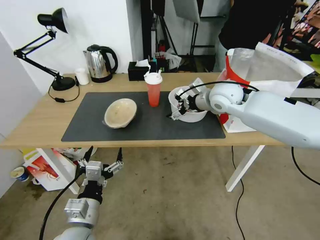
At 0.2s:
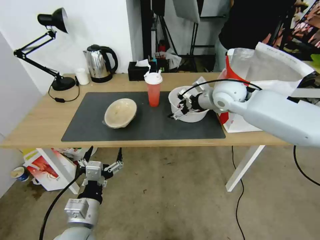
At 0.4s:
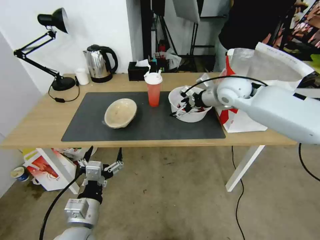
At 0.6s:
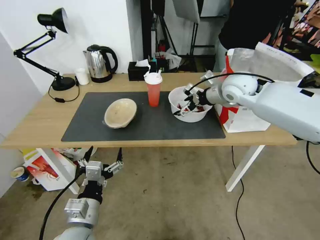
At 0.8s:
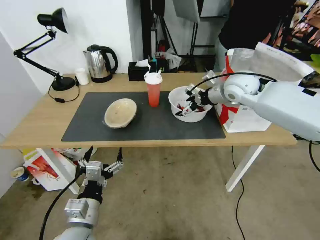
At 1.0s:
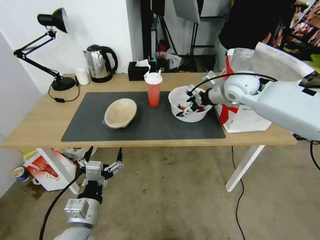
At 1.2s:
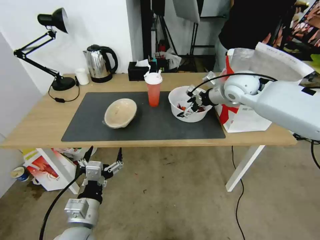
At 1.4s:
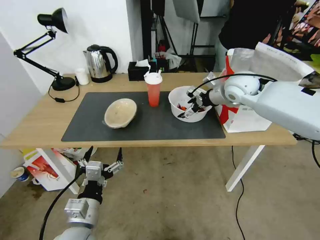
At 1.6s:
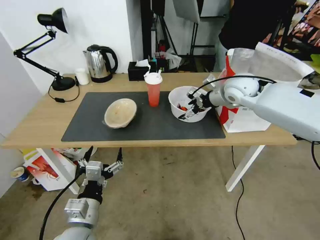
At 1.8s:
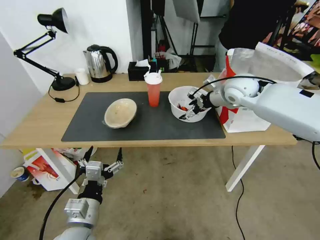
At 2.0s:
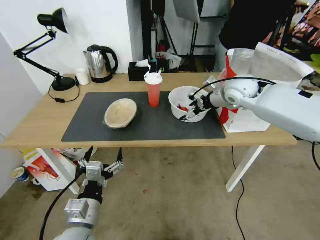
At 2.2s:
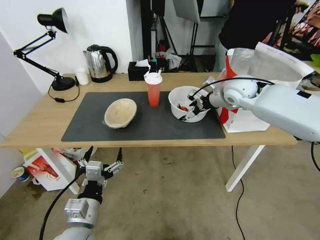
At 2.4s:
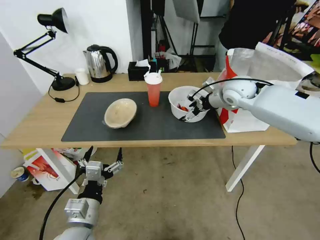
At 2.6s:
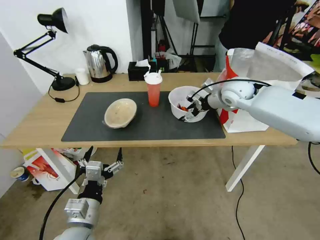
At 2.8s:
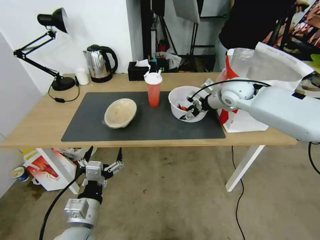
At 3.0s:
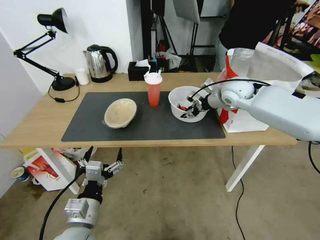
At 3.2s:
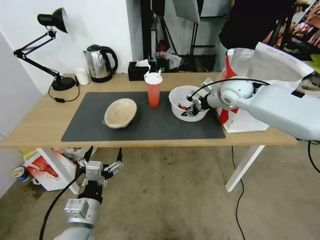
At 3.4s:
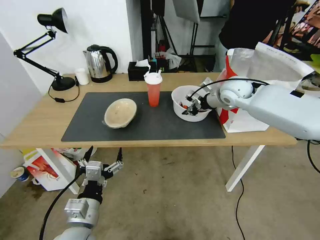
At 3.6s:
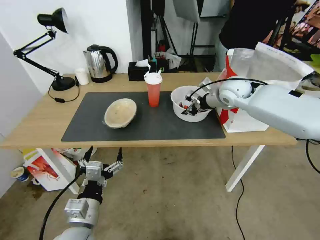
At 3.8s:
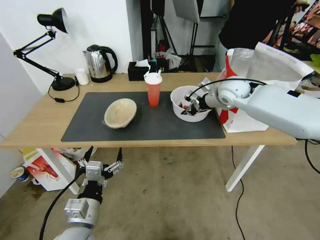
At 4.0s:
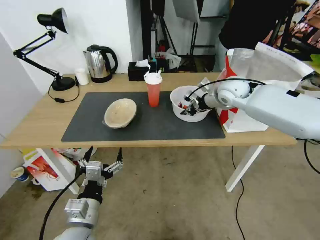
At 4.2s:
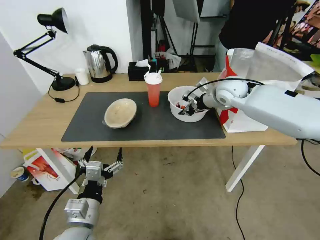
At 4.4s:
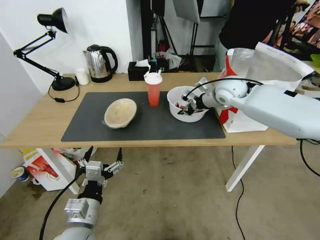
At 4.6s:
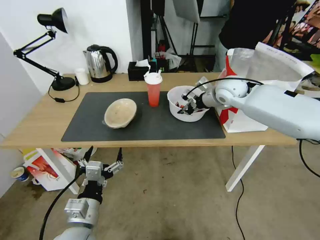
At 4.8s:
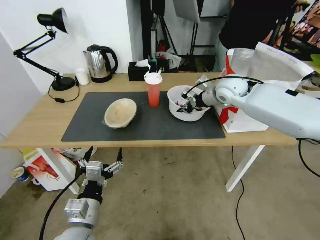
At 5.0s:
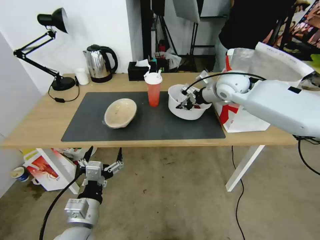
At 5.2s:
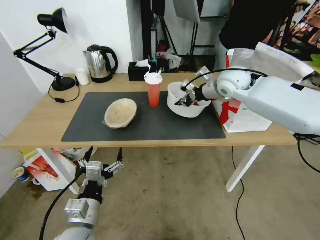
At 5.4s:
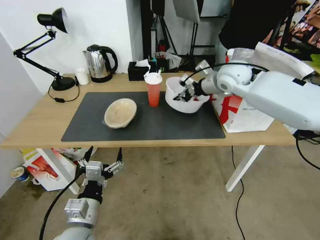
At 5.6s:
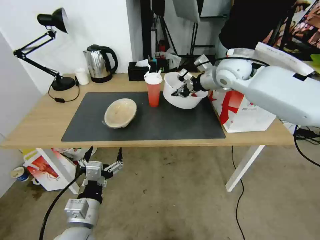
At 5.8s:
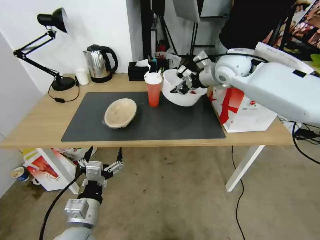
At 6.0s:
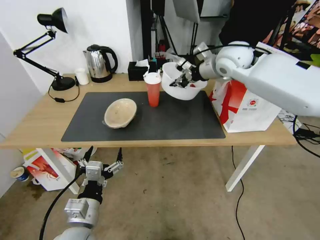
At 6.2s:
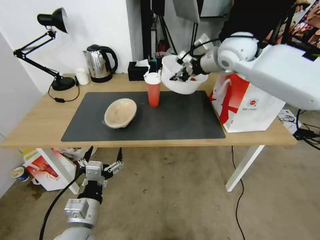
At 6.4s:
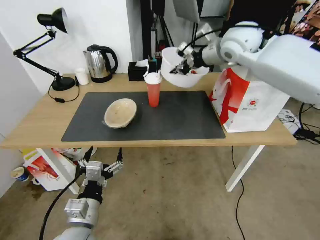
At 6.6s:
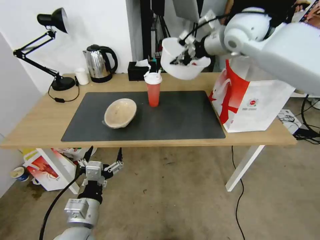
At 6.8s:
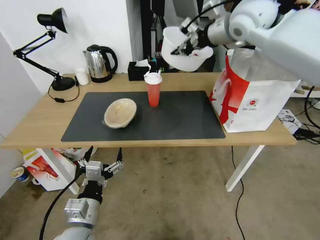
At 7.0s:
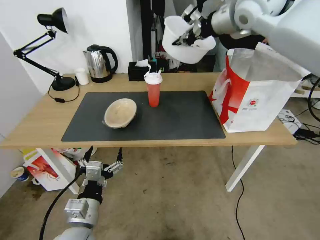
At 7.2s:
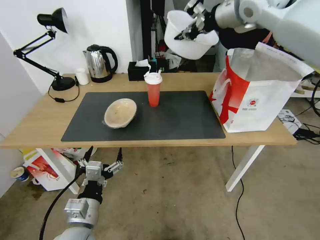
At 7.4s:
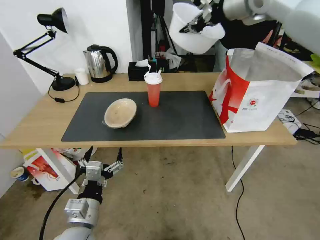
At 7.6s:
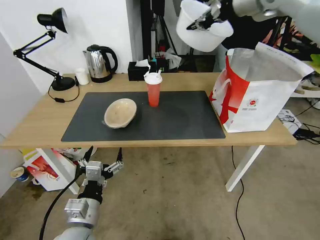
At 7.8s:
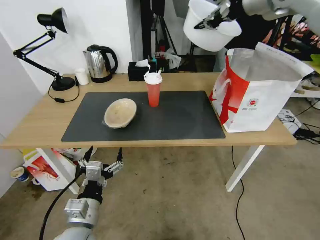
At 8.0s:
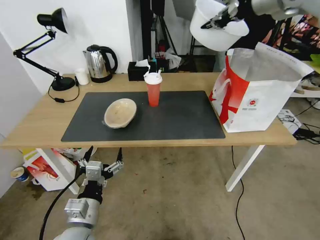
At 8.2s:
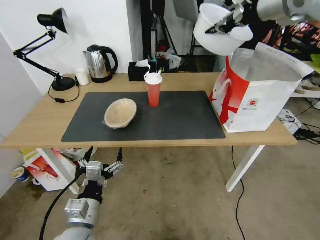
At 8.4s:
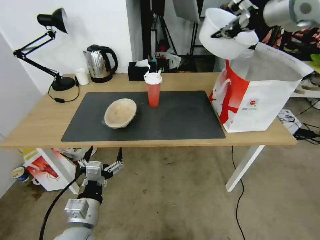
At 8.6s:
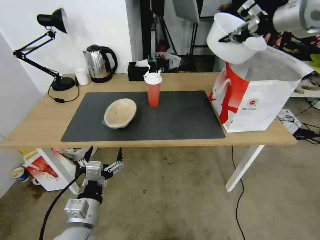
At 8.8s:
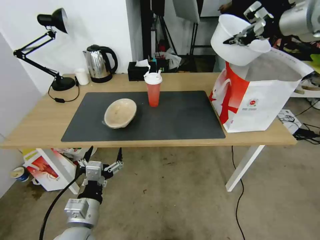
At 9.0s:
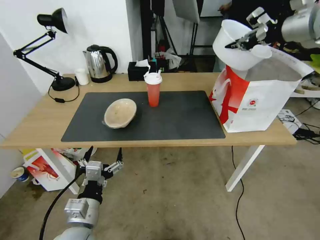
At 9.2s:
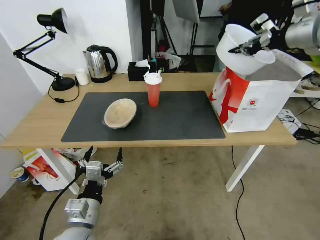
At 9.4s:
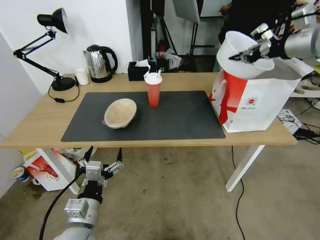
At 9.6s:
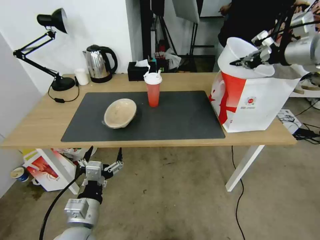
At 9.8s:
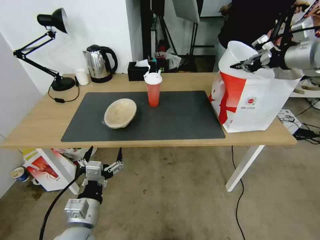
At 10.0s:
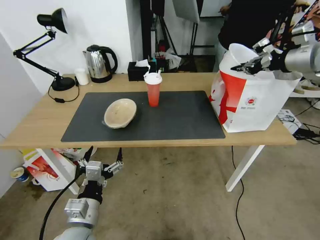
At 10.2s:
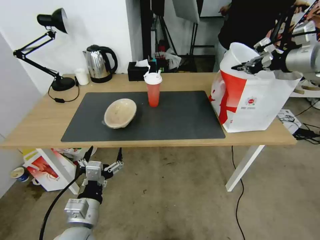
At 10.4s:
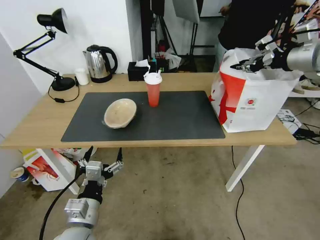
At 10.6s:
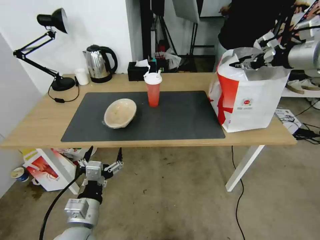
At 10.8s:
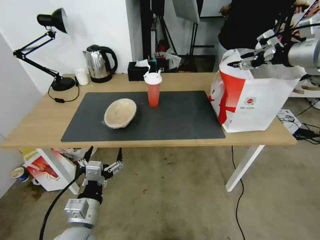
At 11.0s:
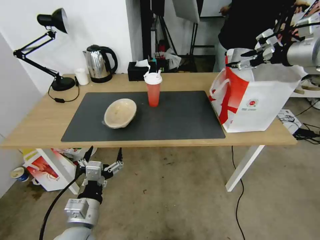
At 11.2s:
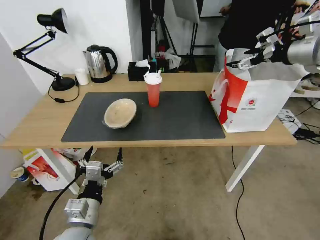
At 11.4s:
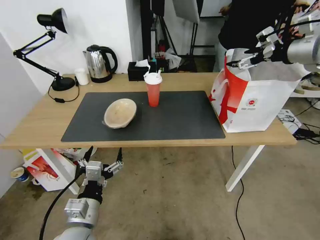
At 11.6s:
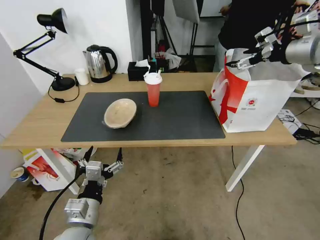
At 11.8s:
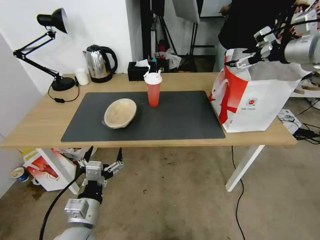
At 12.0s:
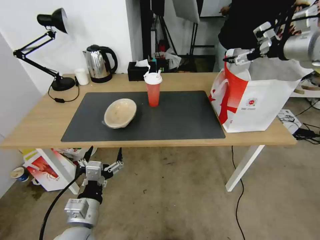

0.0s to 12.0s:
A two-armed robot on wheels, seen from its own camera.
Task of the whole recording: Pick up the trash from the table and place it into the takeout bag.
0.0s to 1.6s: The right gripper is displaced to the right by about 5 cm.
1.6s to 3.0s: The right gripper closes its fingers.
3.0s to 4.4s: The right gripper closes.
4.4s to 6.0s: The right gripper is displaced upward by some 10 cm.
6.0s to 7.6s: The right gripper is displaced upward by about 15 cm.
7.6s to 9.0s: The right gripper goes some 10 cm to the right.
9.0s to 10.4s: The right gripper travels downward by some 5 cm.
10.4s to 12.0s: The right gripper opens up.

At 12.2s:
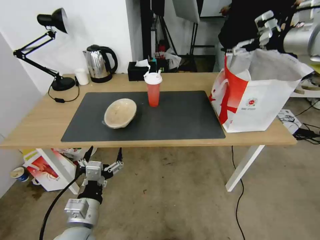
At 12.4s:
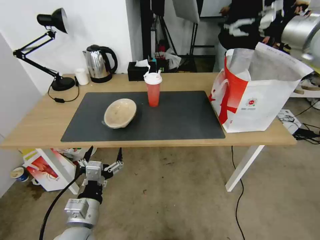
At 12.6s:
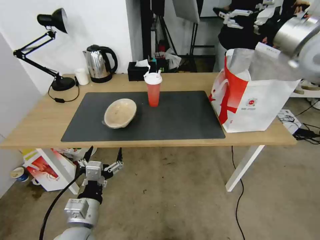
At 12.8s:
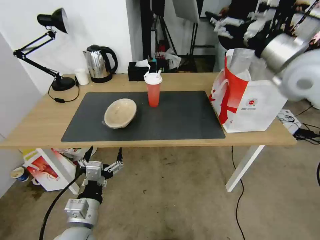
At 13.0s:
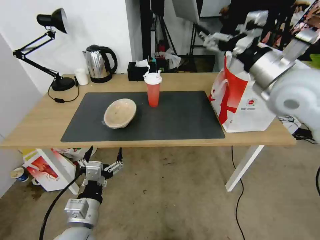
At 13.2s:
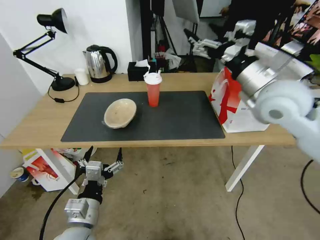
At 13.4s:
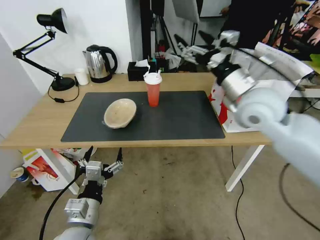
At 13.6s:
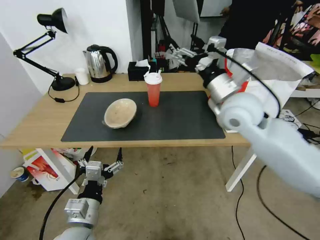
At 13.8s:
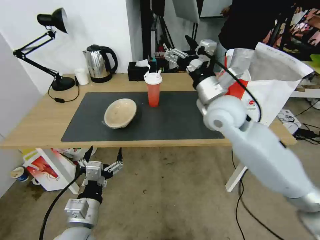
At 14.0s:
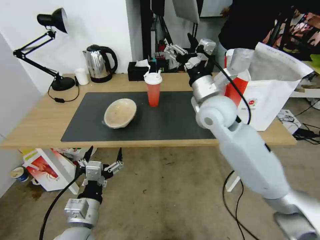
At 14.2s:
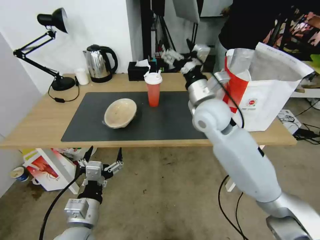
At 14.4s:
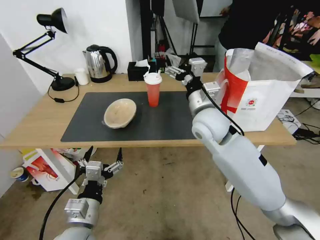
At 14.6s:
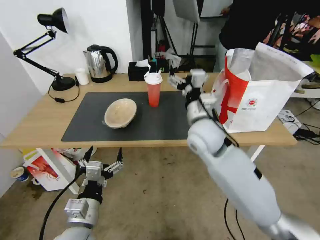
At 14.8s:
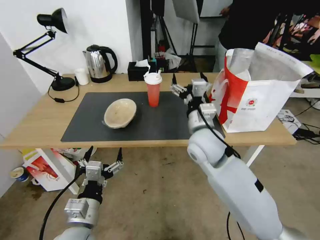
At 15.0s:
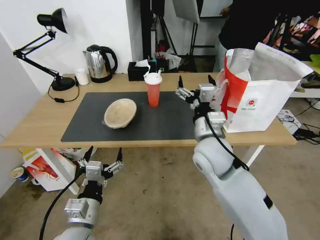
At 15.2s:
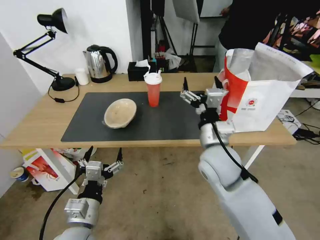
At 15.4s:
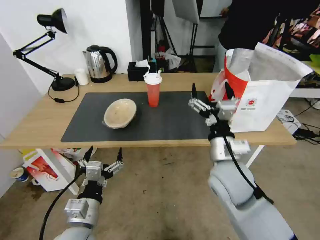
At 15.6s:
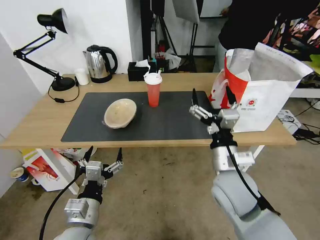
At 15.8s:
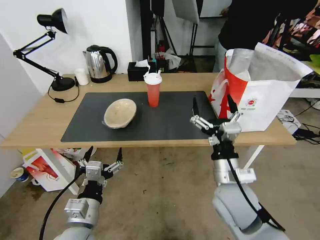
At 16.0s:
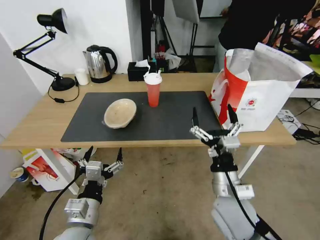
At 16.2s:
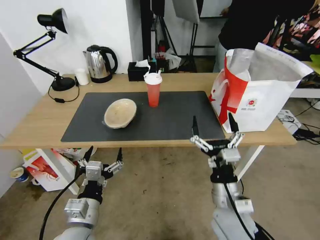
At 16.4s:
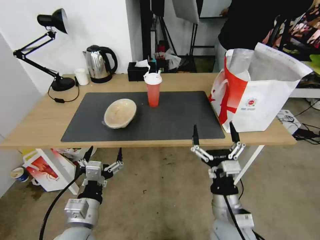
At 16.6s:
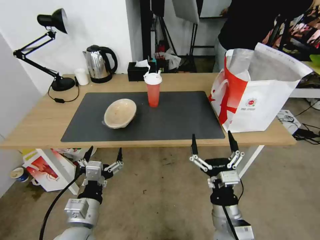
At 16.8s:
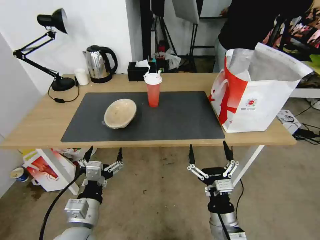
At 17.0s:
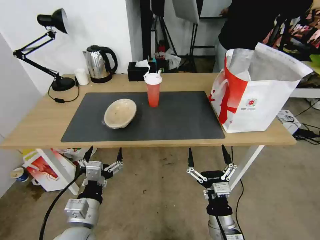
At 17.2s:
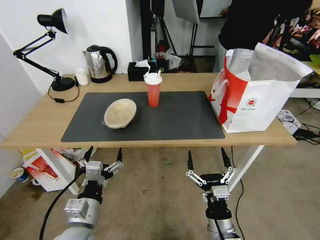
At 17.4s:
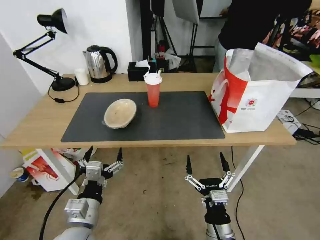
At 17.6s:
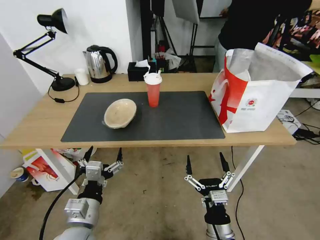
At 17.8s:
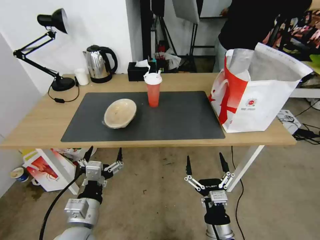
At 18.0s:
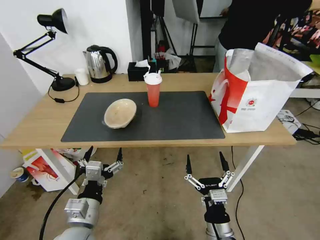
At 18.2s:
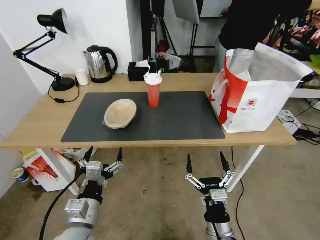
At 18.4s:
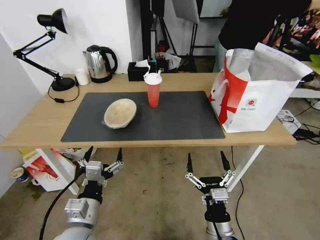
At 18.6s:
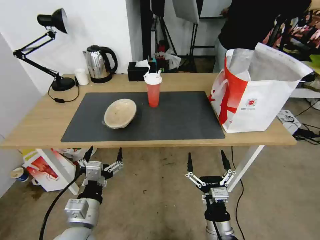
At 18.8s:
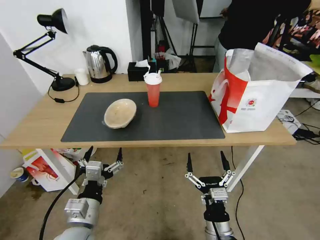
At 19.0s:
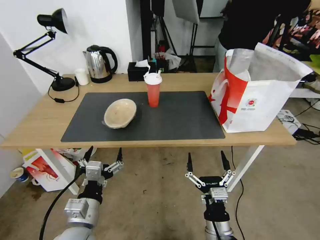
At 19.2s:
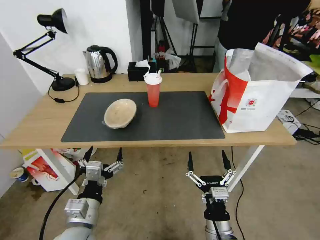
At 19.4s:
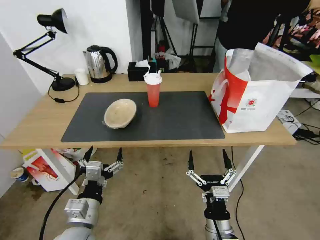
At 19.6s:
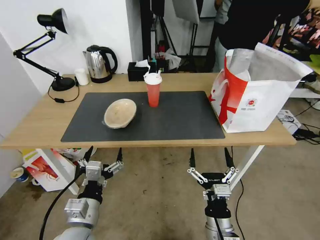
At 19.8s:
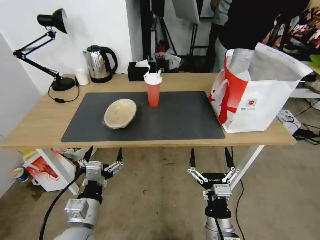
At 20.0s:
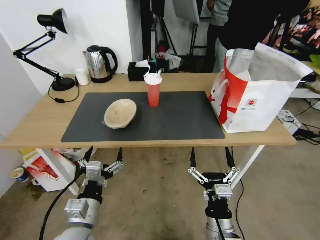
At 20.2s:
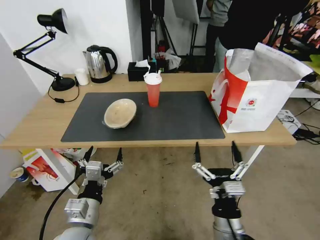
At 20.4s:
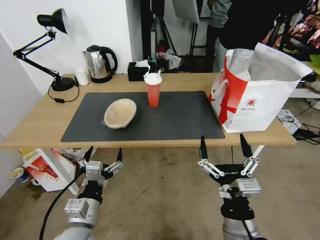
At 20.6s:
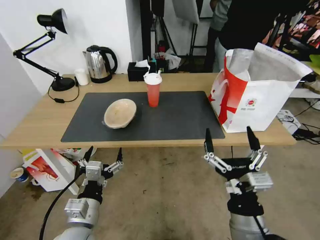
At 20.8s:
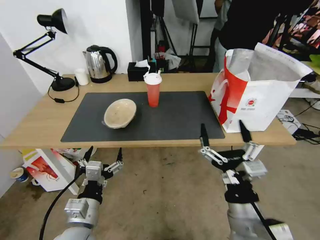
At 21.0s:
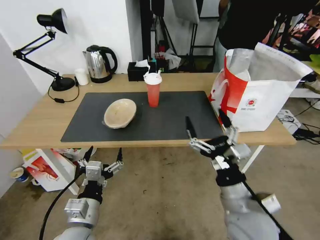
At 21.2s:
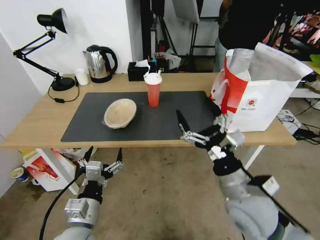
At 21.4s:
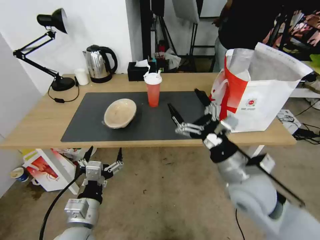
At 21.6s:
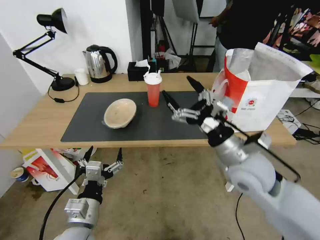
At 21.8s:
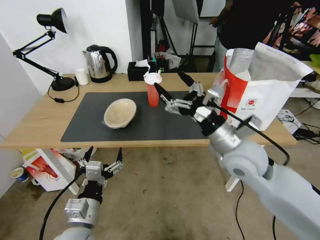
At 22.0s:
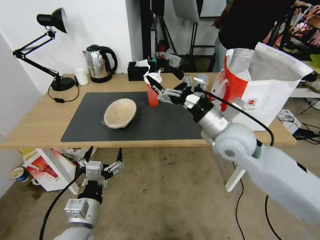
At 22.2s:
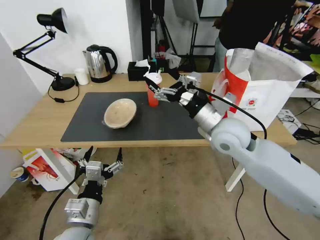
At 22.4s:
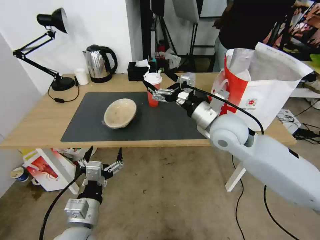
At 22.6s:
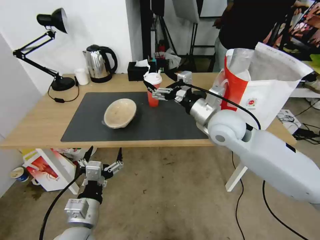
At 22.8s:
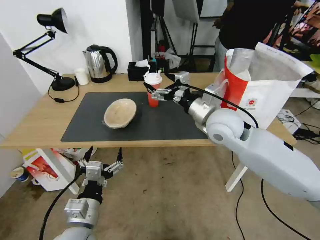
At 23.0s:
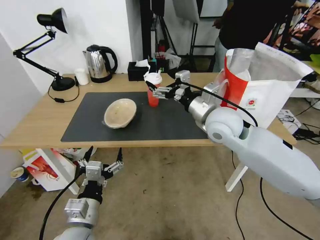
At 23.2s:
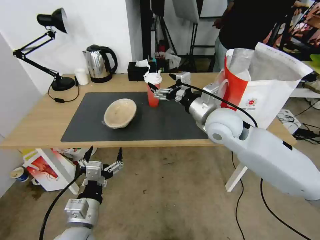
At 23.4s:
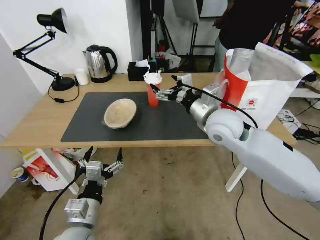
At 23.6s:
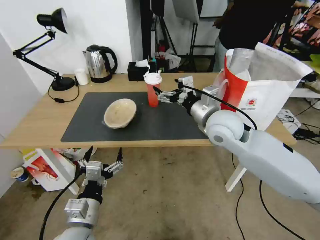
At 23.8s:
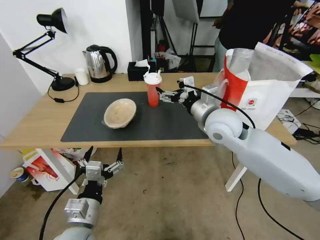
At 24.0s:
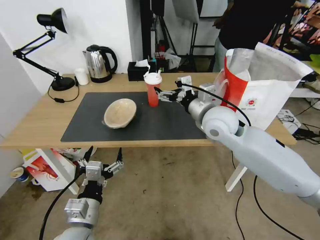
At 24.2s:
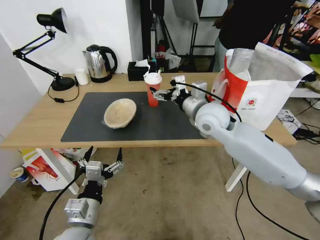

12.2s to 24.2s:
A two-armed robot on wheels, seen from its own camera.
Task of the whole recording: Pick up the trash from the table and place it into the takeout bag.
12.2s to 13.8s: The right gripper is displaced to the left and downward by some 25 cm.
13.8s to 15.2s: The right gripper shifts about 15 cm downward and backward.
15.2s to 16.6s: The right gripper is displaced backward and downward by about 20 cm.
16.6s to 18.2s: The right gripper goes some 5 cm downward.
18.2s to 19.8s: There are only small adjustments of the grippers.
19.8s to 21.2s: The right gripper moves upward and forward, some 15 cm.
21.2s to 22.6s: The right gripper travels forward and upward by roughly 20 cm.
